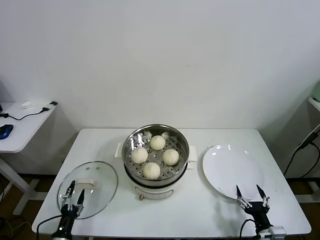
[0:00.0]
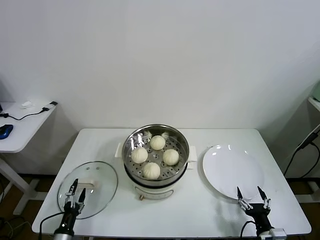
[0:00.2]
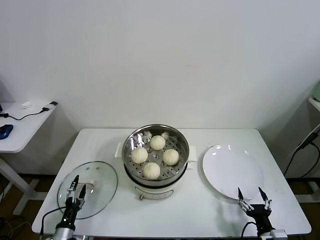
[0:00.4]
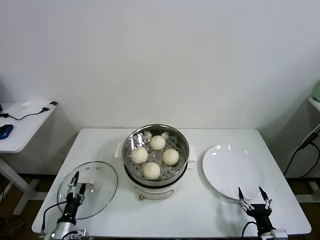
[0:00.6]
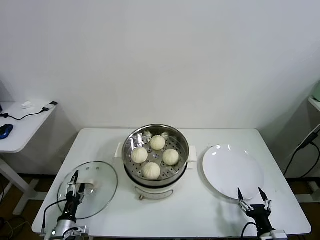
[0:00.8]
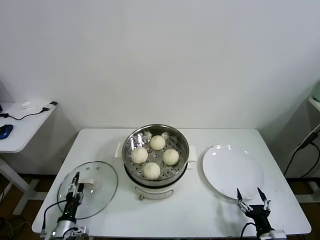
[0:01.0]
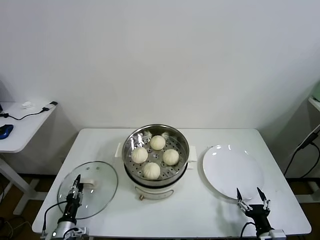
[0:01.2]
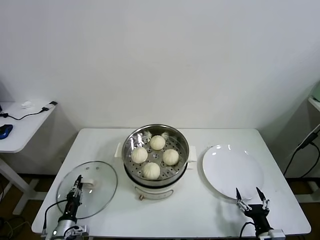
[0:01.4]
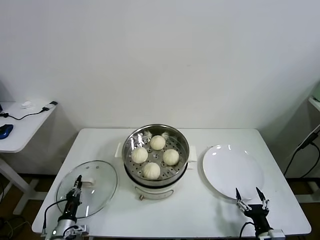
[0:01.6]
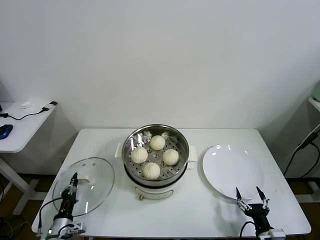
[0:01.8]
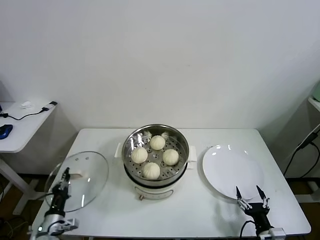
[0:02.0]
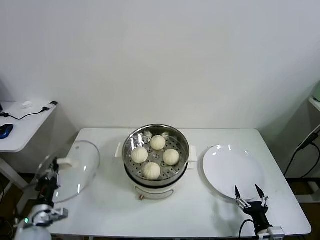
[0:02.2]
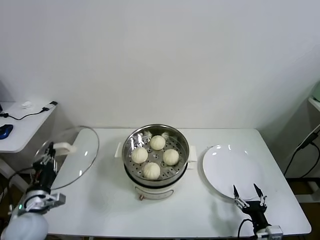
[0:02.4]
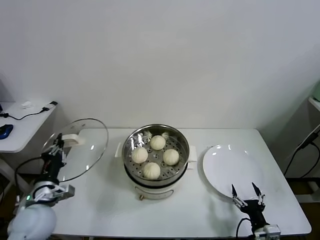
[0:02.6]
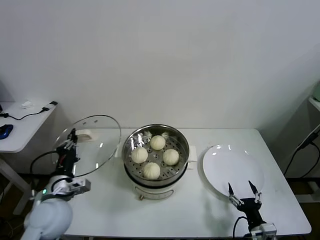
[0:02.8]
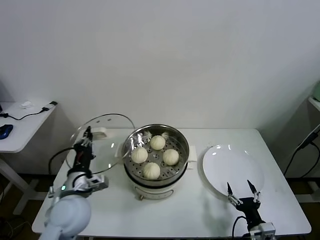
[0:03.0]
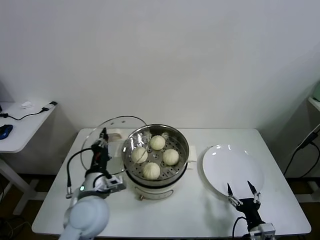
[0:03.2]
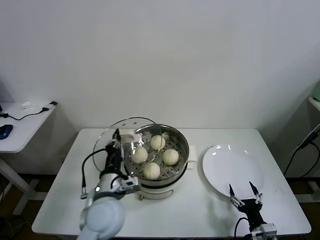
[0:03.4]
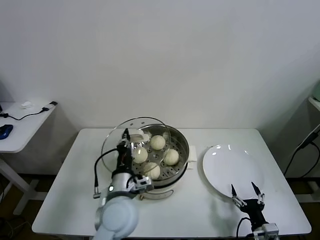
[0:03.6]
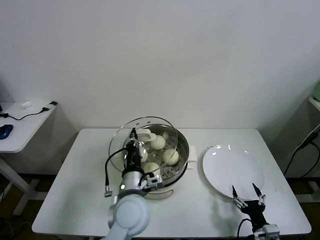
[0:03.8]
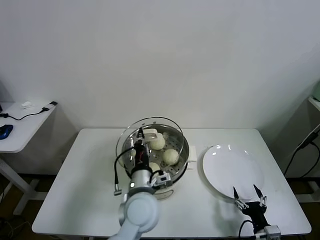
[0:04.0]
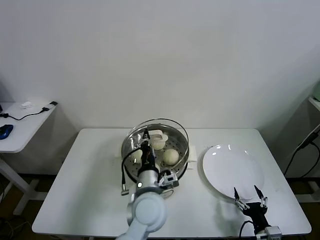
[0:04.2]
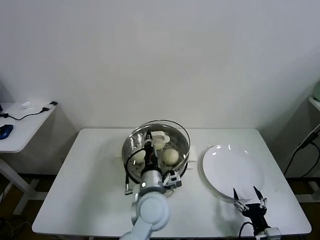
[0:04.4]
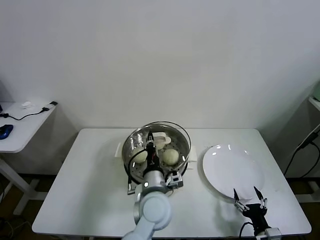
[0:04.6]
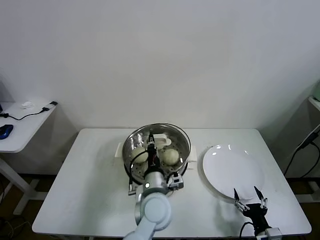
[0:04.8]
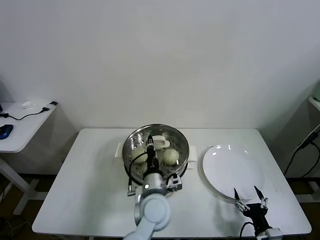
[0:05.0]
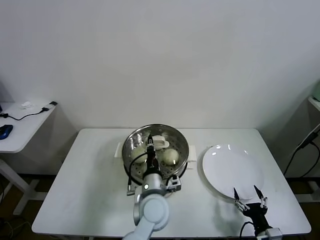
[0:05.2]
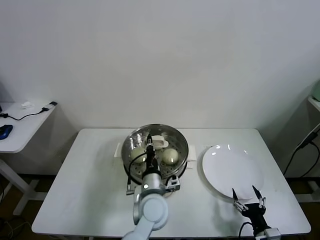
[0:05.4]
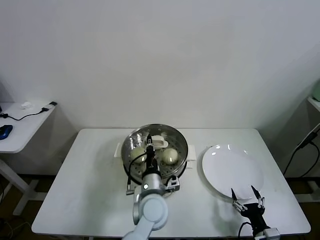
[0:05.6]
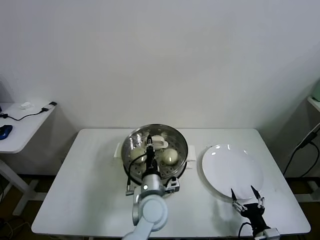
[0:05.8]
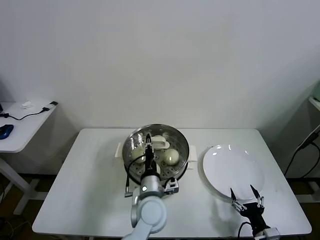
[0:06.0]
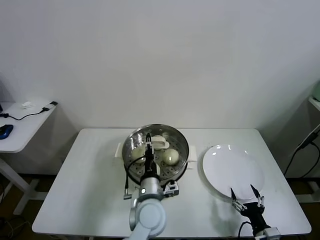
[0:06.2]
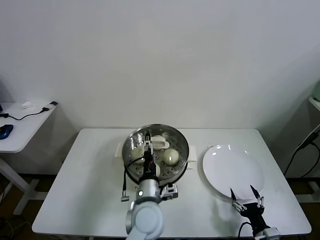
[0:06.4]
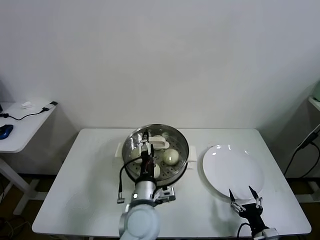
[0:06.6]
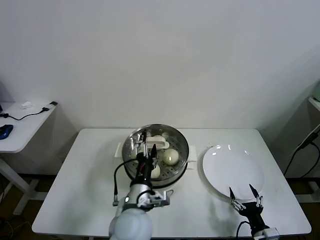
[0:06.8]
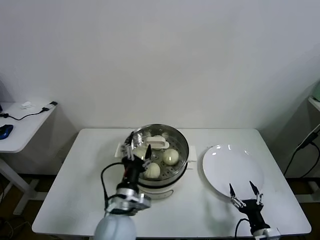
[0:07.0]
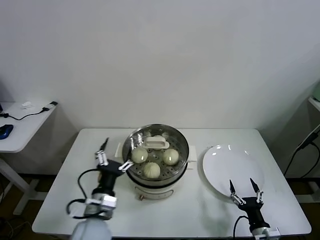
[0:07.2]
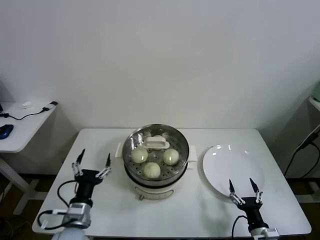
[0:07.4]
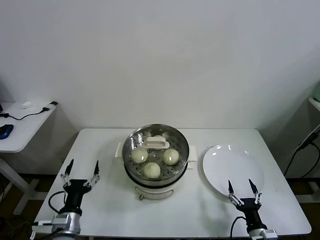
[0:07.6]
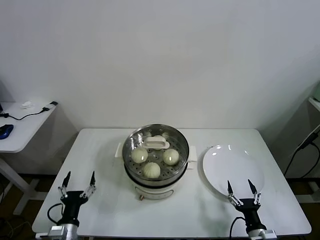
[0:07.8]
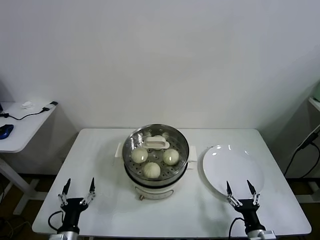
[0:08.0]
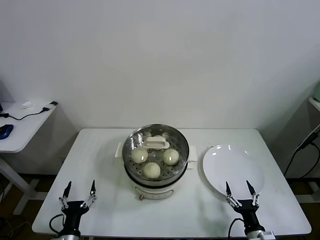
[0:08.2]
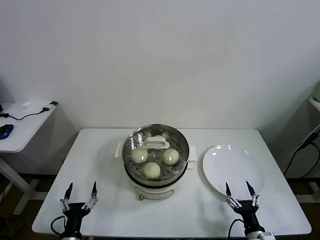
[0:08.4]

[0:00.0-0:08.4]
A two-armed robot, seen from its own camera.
Task of the whole recording: take steamed baozi put them in steamer.
Step, 0:01.8 to 0:06.4: Place the pot lid on the steamer with left gripper.
0:00.0 to 0:01.4: The left gripper shifts about 5 cm forward, and closes.
0:01.4 to 0:02.8: The left gripper heads upward, covering approximately 25 cm.
0:02.8 to 0:04.2: The left gripper travels to the right by about 25 cm.
0:04.2 to 0:05.6: The left gripper is displaced downward by some 5 cm.
0:05.6 to 0:07.0: The left gripper shifts some 10 cm to the left and backward, and opens.
0:07.0 to 0:08.4: The left gripper goes approximately 25 cm to the left, downward and backward.

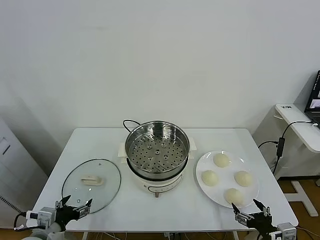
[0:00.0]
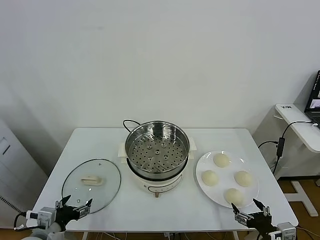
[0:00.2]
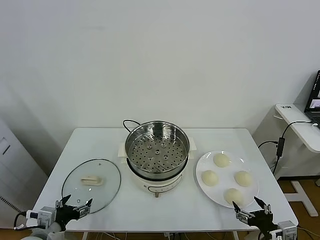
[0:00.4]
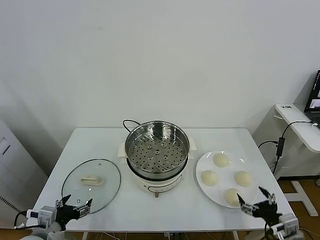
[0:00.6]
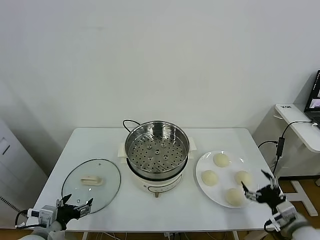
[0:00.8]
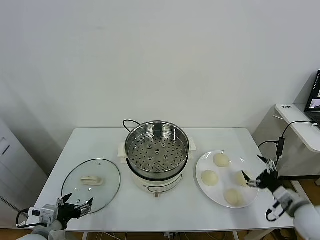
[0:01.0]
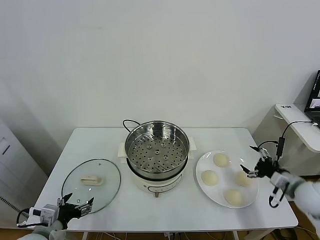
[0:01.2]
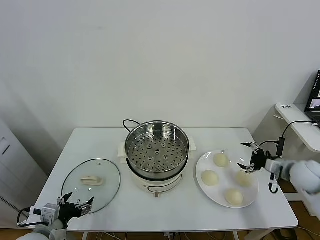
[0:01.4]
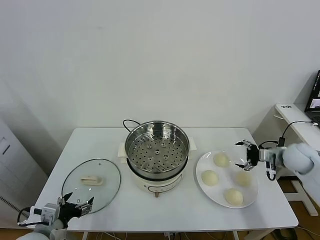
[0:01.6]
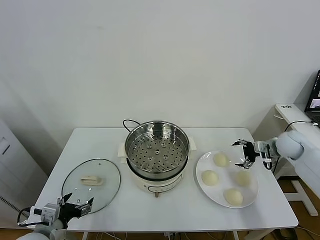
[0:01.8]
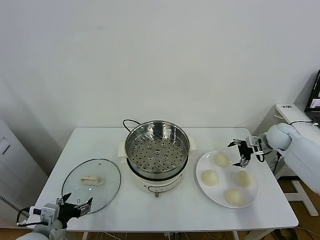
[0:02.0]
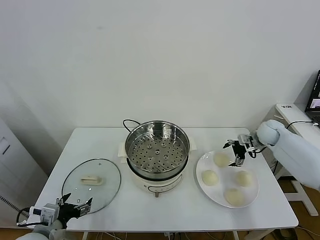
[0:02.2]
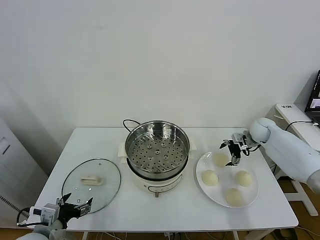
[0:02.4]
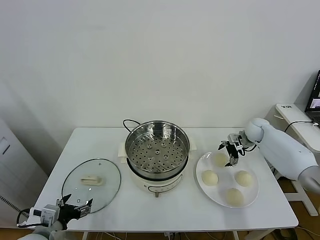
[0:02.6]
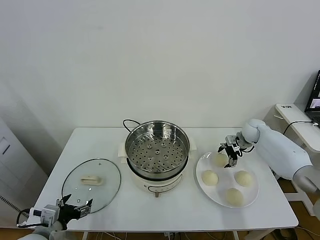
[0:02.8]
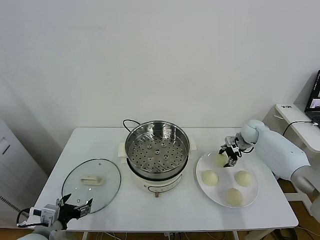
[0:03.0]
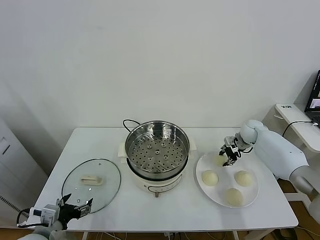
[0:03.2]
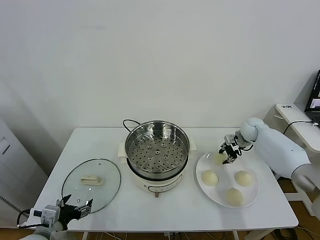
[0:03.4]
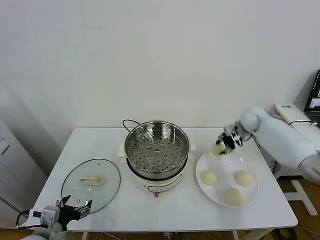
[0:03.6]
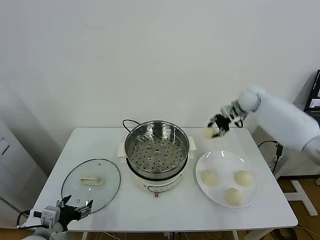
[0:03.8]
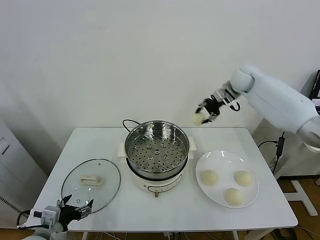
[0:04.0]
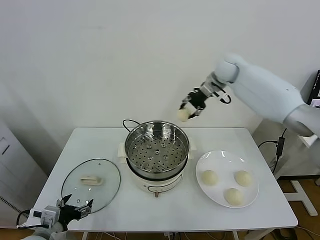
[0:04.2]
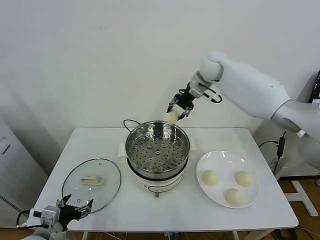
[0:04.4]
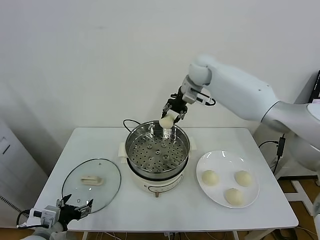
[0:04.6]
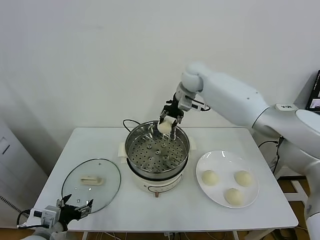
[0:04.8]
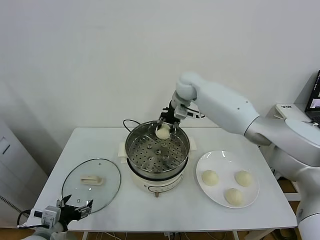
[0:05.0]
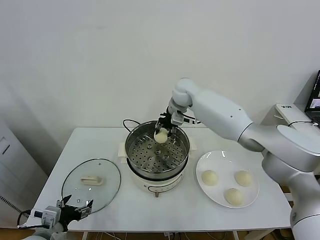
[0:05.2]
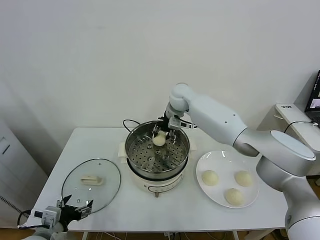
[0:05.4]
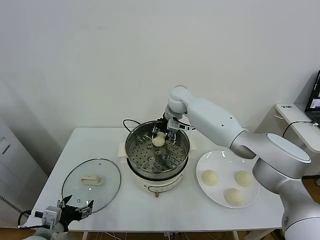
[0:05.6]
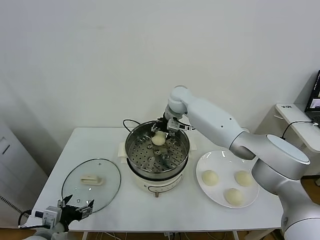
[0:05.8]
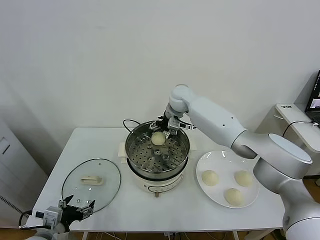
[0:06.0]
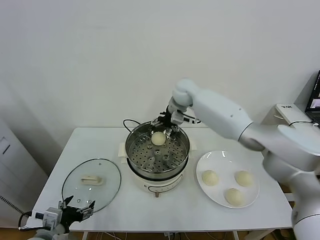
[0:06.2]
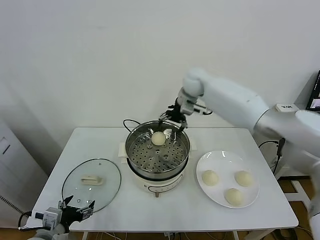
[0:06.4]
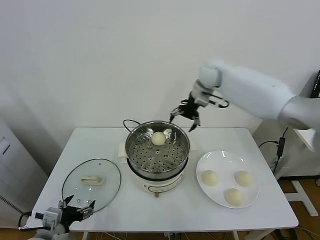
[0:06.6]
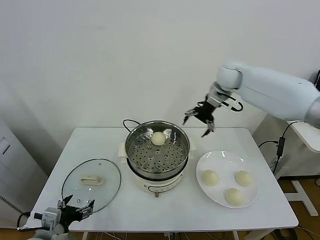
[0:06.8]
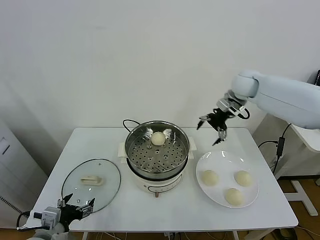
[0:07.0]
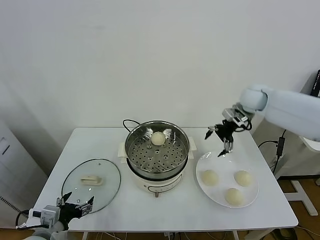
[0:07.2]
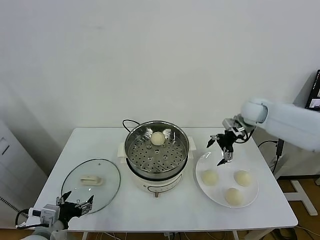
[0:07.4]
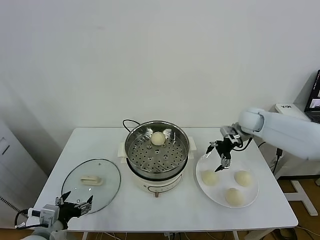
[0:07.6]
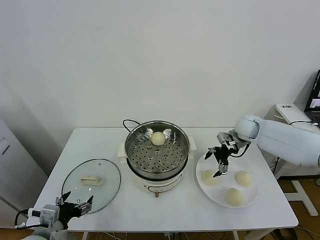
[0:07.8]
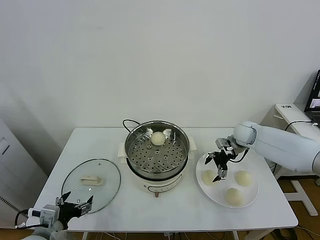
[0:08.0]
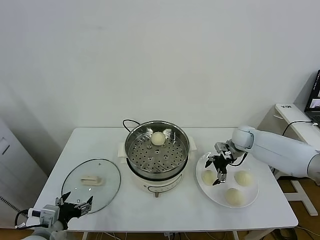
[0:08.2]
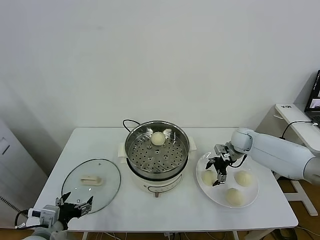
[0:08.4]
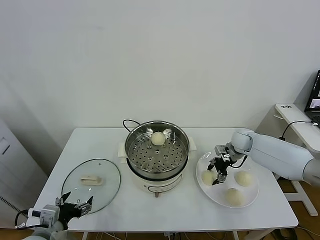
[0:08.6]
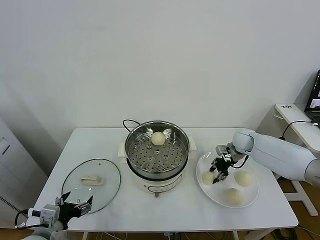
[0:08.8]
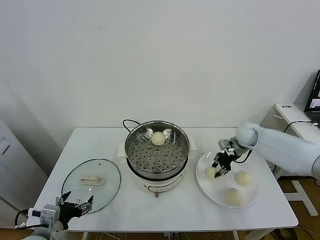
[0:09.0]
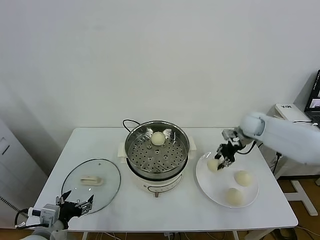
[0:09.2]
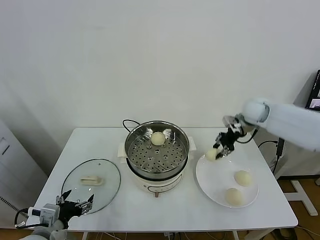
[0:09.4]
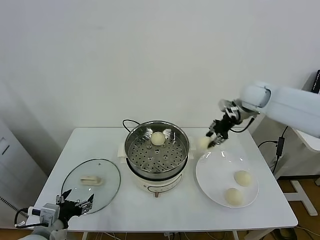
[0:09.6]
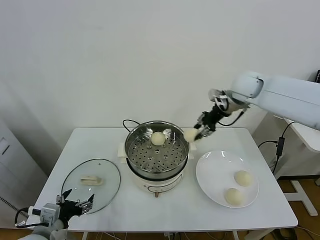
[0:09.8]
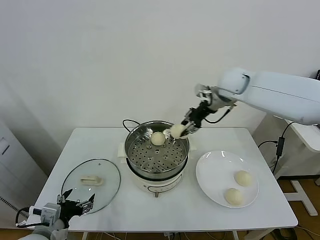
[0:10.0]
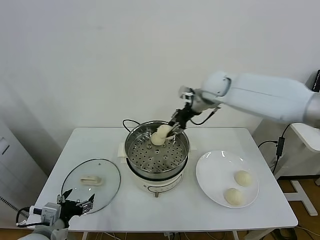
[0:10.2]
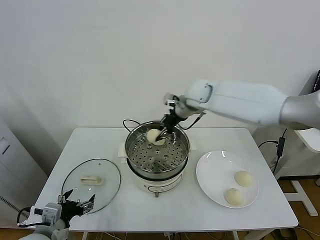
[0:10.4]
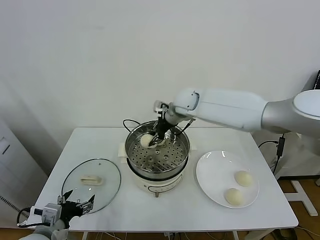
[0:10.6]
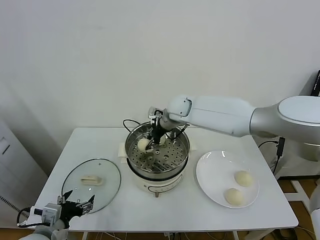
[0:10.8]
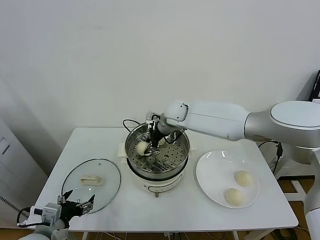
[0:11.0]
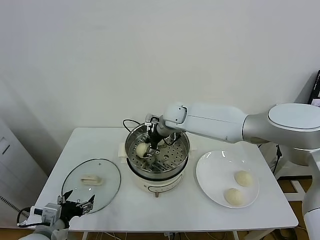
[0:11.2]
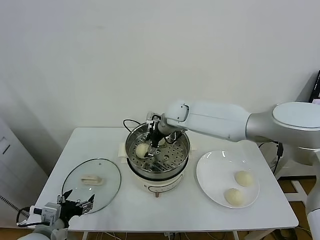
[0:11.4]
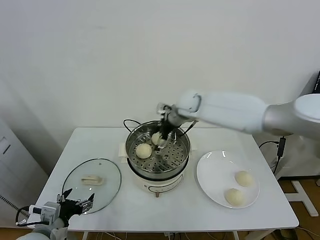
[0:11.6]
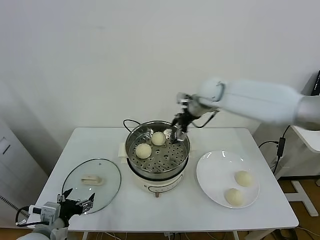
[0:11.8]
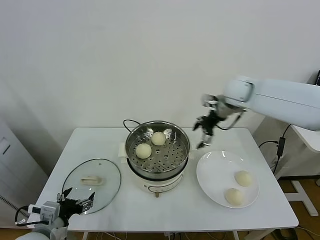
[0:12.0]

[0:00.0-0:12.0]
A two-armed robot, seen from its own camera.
Task of the whole recording: take steamed baozi put them in steamer.
Step, 0:00.0 to 0:03.0: Grasp the baozi in the plate with right gripper.
Step, 0:03.2 to 0:06.0: Place the baozi on the steamer with right gripper.
Step, 0:06.2 to 0:08.6: Grasp the baozi in the plate with right gripper.
Step, 0:08.8 to 0:11.4: Place the baozi on the steamer with right gripper.
0:01.6 to 0:03.0: The right gripper moves forward and to the left, about 15 cm, and closes up.
0:03.0 to 0:04.4: The right gripper goes roughly 35 cm upward and to the left.
0:04.4 to 0:06.0: The right gripper moves downward and to the left, some 15 cm, and opens up.
0:06.0 to 0:07.6: The right gripper is displaced to the right by approximately 25 cm.
0:07.6 to 0:09.0: The right gripper closes its fingers.
0:09.0 to 0:10.4: The right gripper shifts some 30 cm to the left and upward.
0:10.4 to 0:12.0: The right gripper shifts roughly 15 cm to the right, and opens.

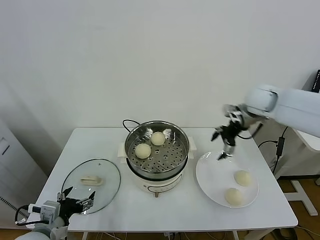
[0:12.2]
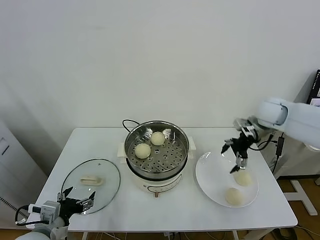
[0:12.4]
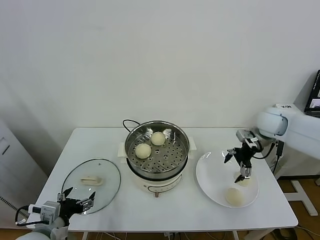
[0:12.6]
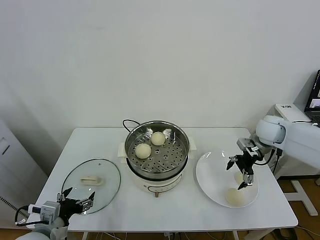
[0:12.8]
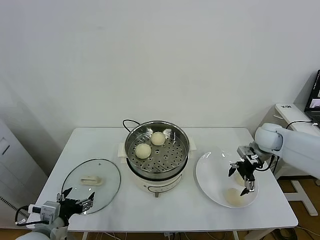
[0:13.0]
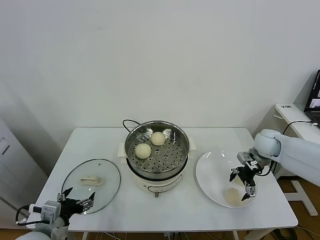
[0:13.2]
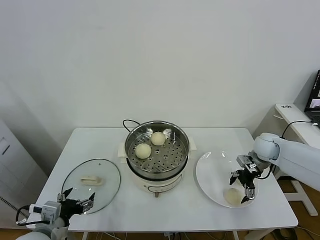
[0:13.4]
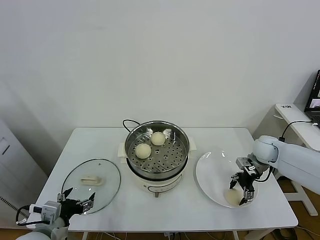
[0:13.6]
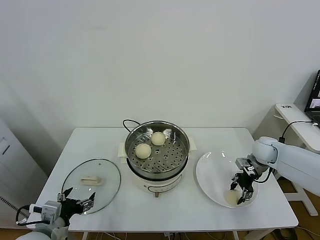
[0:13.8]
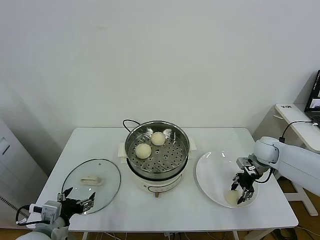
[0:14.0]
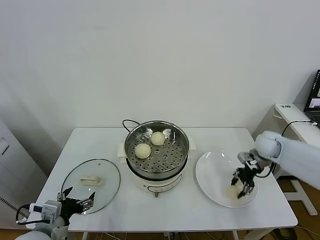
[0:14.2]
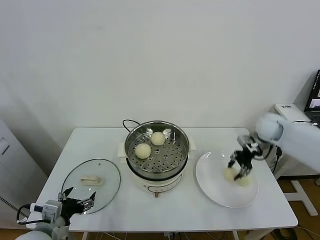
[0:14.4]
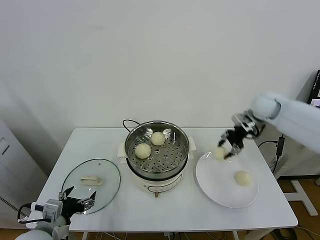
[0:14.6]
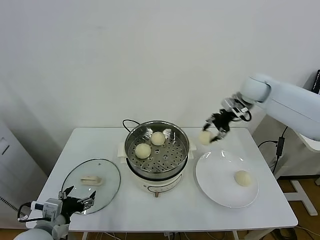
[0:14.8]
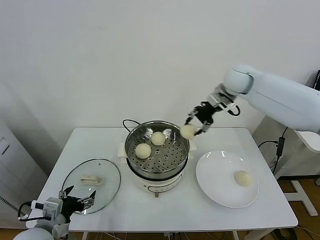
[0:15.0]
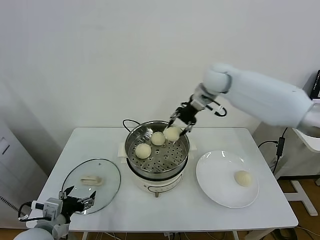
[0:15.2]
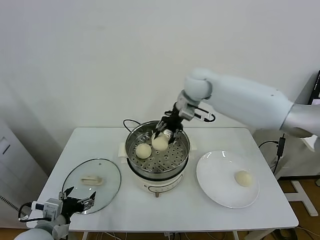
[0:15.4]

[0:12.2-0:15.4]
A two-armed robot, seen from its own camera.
Task of the whole recording: take steamed baozi put them in steamer.
Step, 0:12.2 to 0:13.6: Grasp the baozi in the plate with right gripper.
0:12.2 to 0:13.8: The right gripper goes approximately 20 cm downward, and closes its fingers.
0:13.8 to 0:15.4: The right gripper moves to the left and upward, approximately 35 cm.
